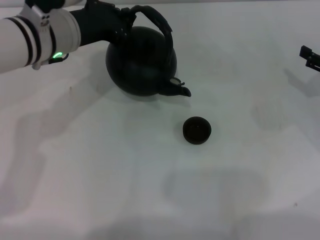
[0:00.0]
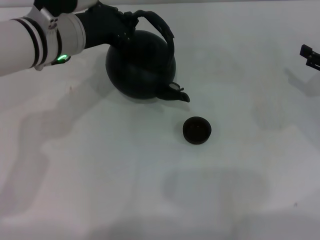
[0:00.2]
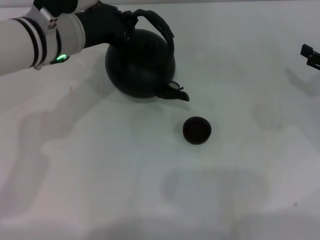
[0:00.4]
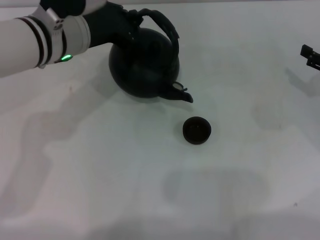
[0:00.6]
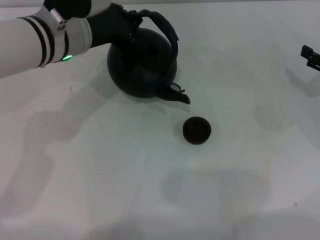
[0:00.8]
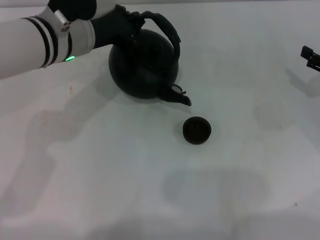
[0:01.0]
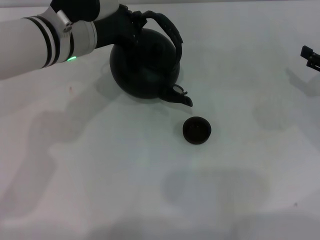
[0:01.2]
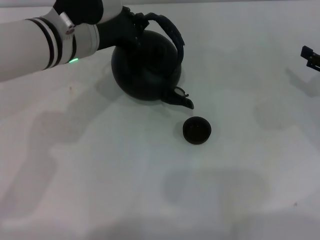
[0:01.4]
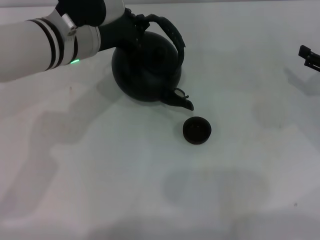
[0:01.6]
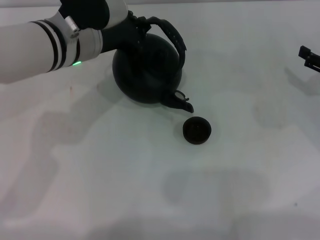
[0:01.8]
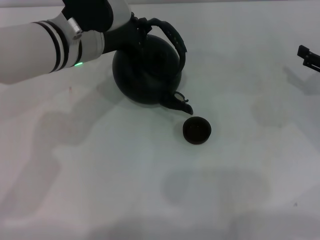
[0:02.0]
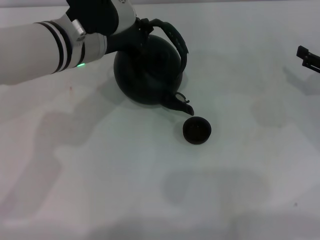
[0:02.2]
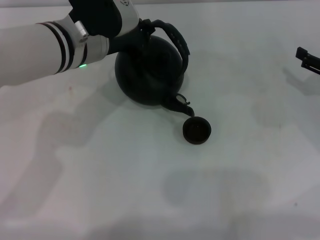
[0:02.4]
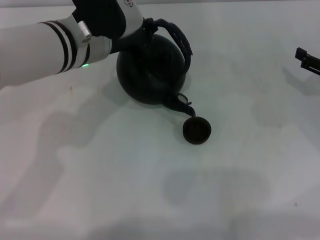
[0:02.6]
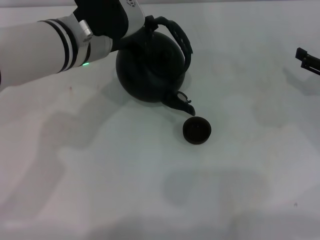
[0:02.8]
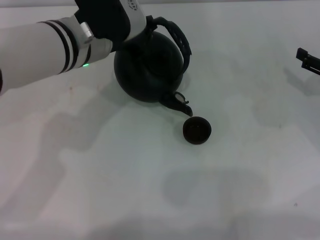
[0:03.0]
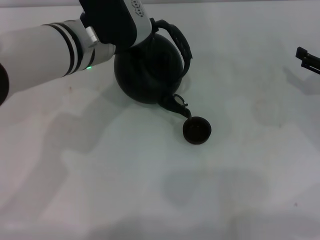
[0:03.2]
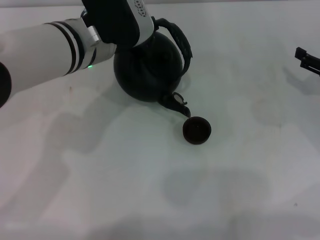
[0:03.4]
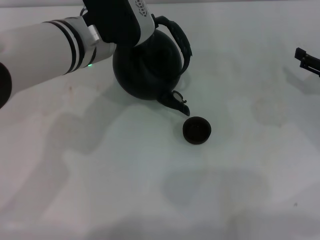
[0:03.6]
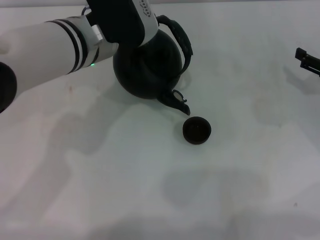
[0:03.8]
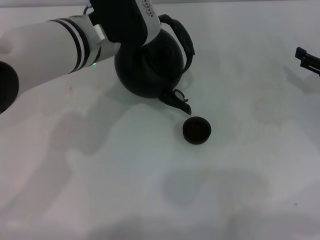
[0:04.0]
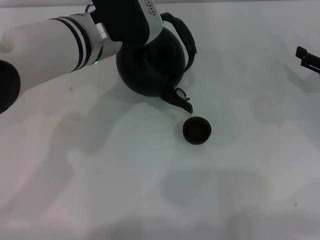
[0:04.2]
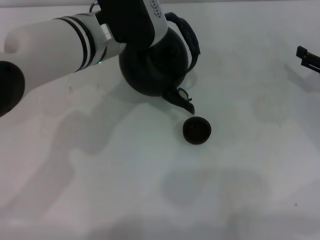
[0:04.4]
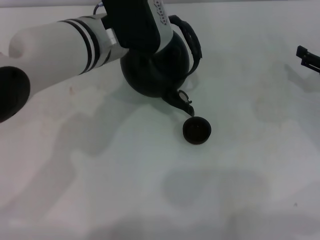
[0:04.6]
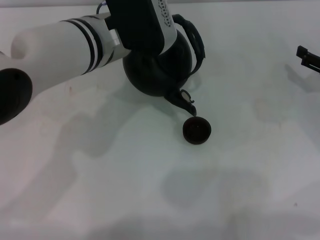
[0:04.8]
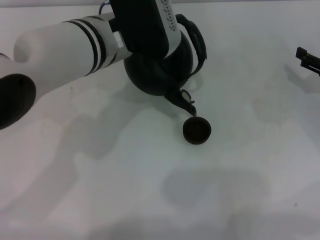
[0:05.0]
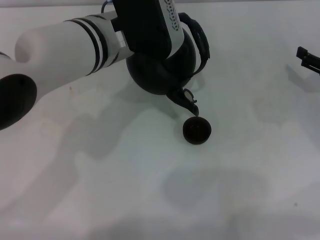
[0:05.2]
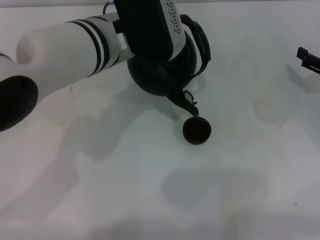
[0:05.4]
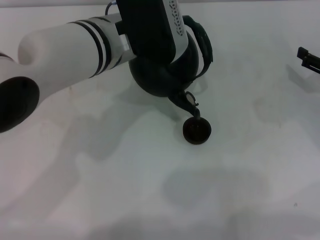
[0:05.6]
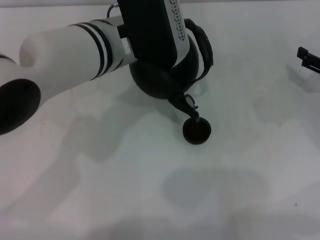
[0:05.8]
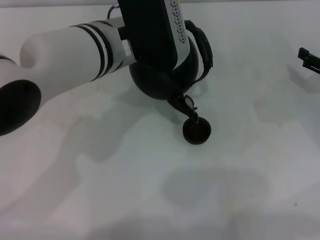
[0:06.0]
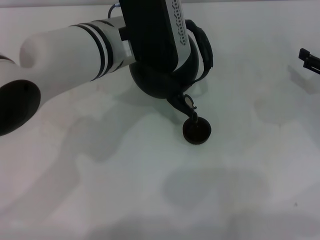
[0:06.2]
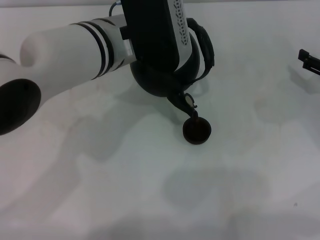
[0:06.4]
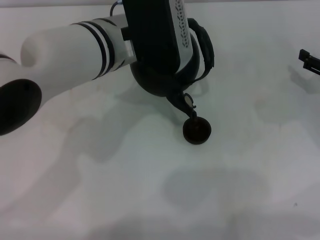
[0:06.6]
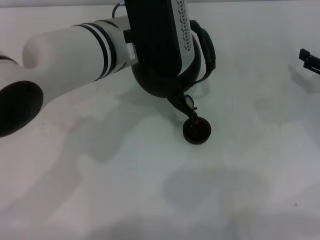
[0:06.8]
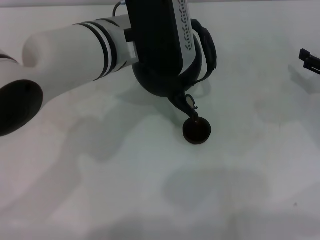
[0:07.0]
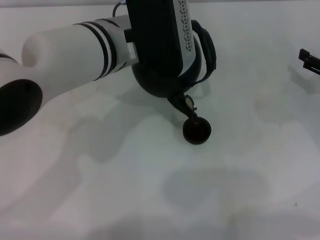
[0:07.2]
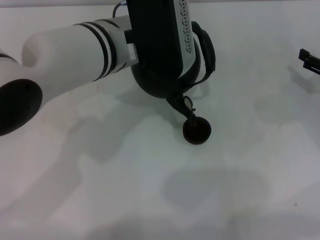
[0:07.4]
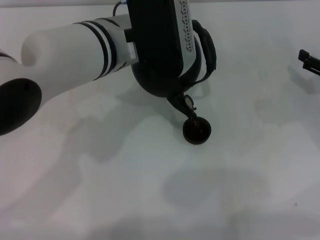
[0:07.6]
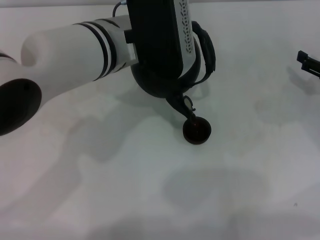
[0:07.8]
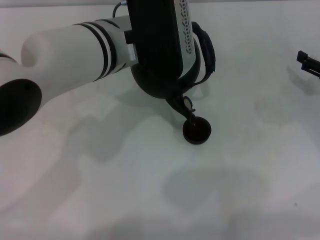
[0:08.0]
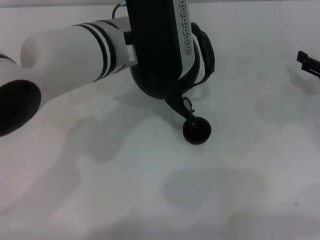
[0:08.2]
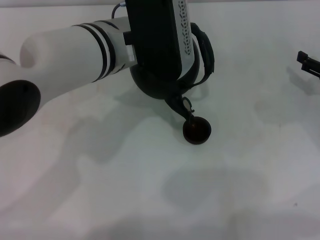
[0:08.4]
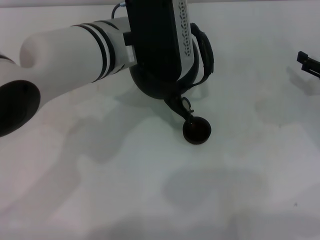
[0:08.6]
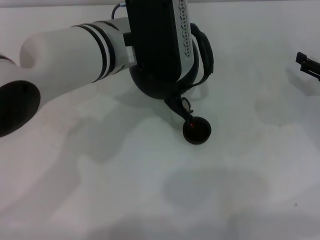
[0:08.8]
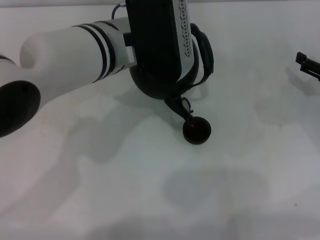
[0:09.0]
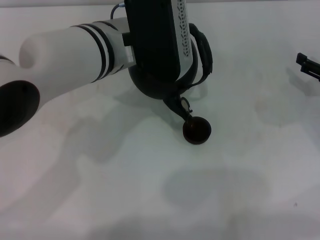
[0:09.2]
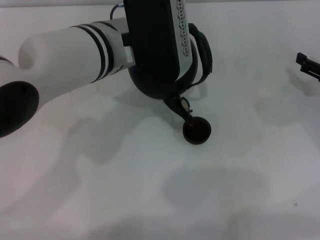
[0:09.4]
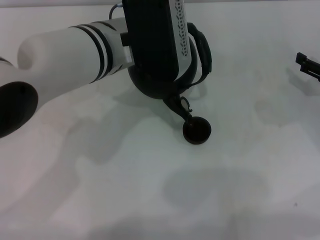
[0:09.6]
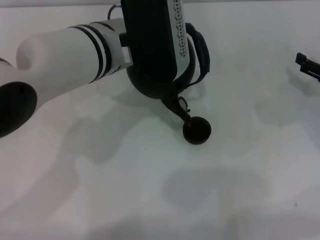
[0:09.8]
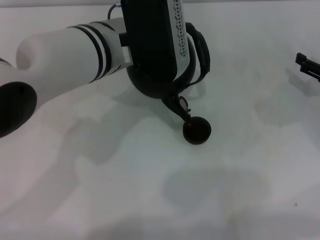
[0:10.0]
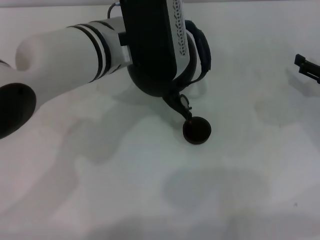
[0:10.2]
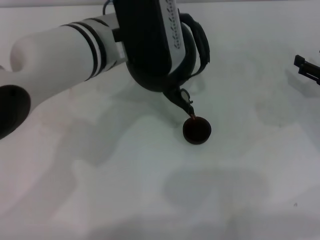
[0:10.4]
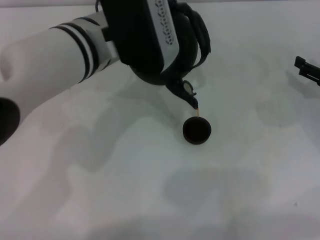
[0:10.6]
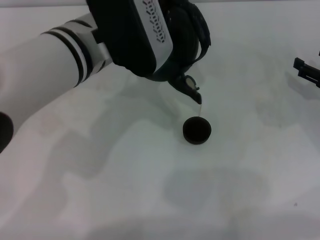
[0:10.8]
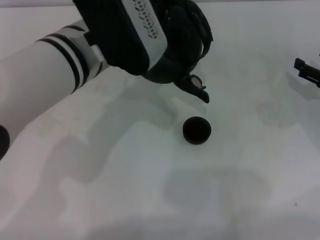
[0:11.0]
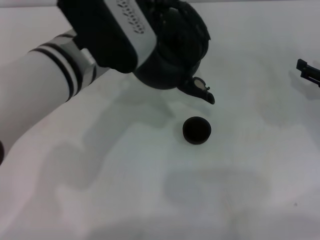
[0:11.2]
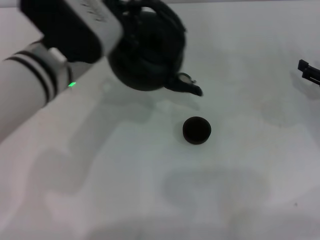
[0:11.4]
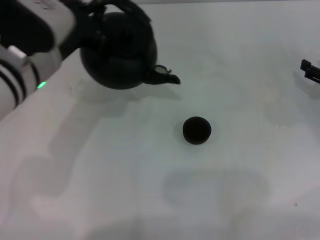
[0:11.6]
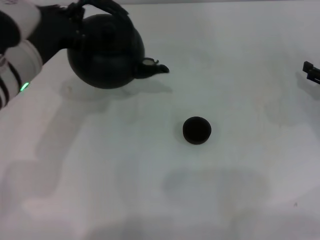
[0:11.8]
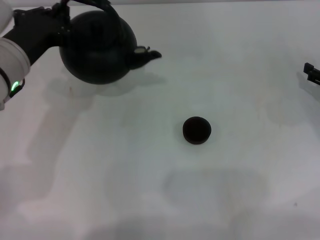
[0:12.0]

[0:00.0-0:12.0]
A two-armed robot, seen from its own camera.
Task of the whole recording: Grasp the handle of the teapot with one hand and pour tea into the teacup.
Step, 0:00.0 to 0:11.6: Pour tea into the teacup with the left gripper.
0:00.0 to 0:01.6: The grippers move only a little.
0:01.6 to 0:04.4: The grippers make only small movements.
0:04.4 to 0:07.6: The grippers stay close to where they were, moving slightly.
0:07.6 to 0:10.4: Both grippers stay put.
0:10.4 to 0:12.0: The left gripper is displaced to the left by about 10 cm.

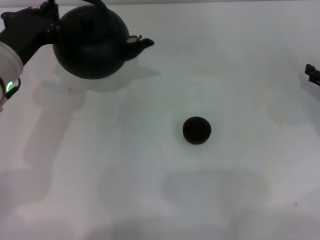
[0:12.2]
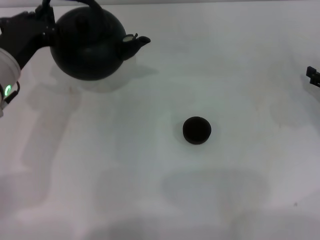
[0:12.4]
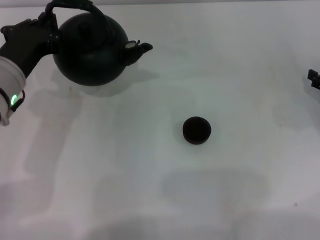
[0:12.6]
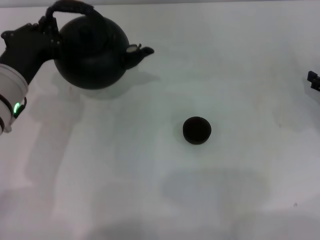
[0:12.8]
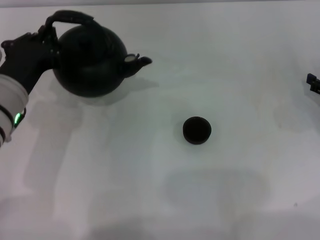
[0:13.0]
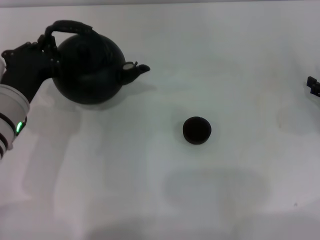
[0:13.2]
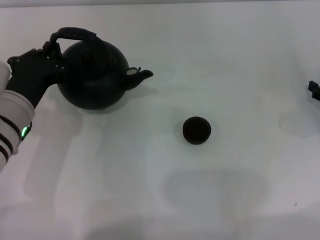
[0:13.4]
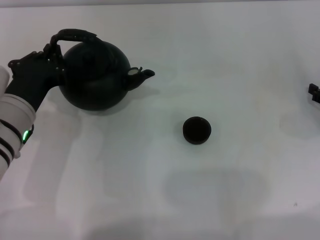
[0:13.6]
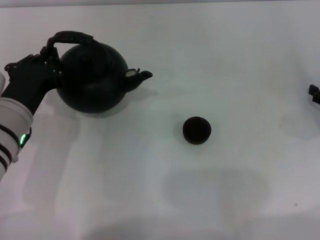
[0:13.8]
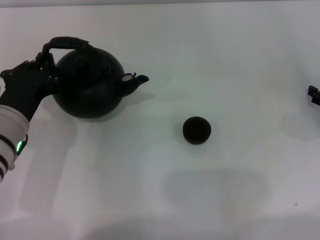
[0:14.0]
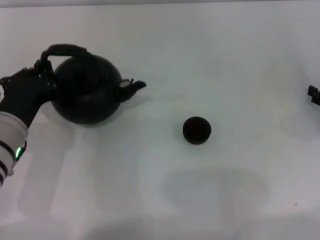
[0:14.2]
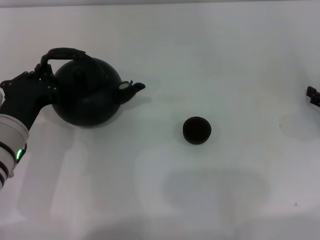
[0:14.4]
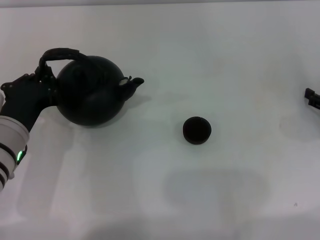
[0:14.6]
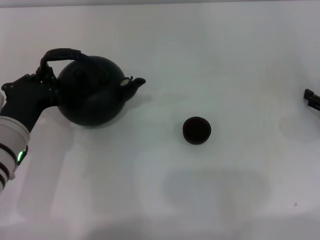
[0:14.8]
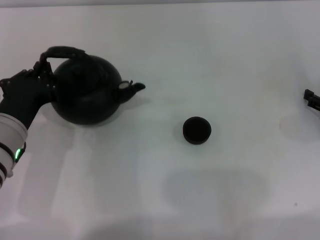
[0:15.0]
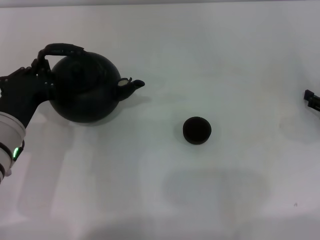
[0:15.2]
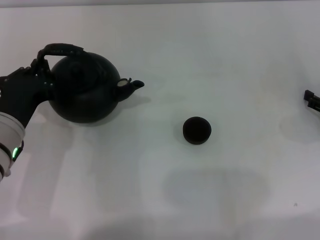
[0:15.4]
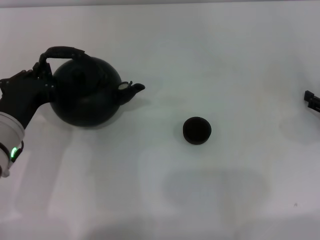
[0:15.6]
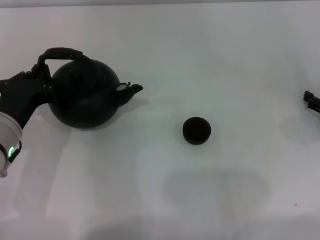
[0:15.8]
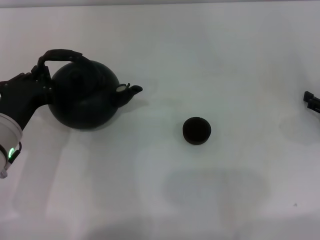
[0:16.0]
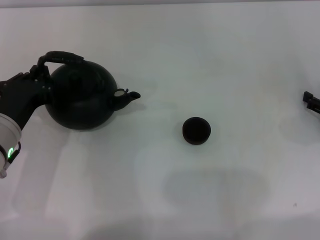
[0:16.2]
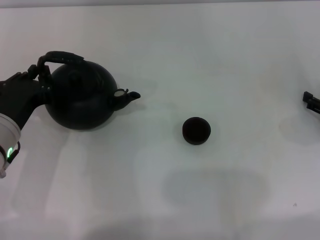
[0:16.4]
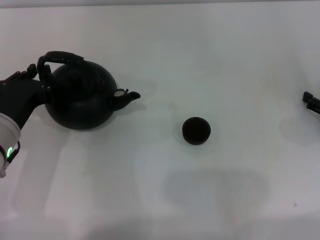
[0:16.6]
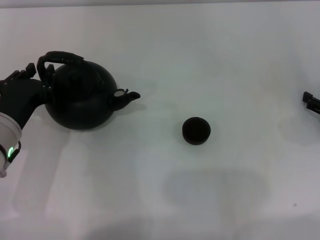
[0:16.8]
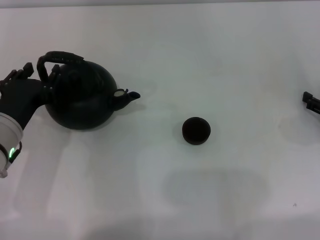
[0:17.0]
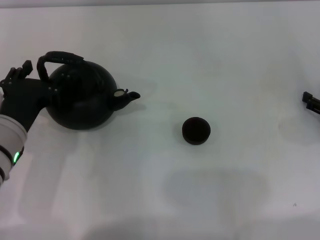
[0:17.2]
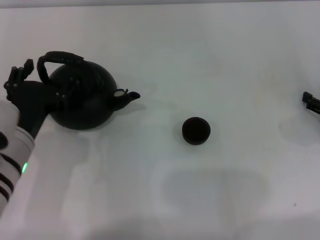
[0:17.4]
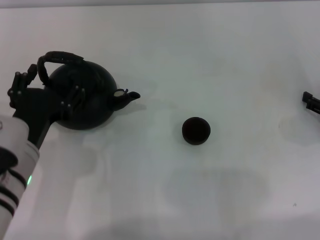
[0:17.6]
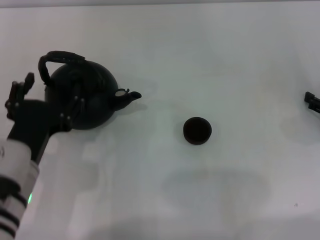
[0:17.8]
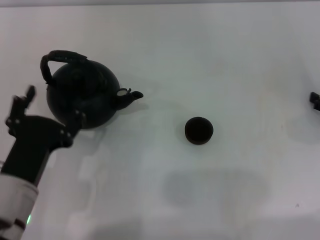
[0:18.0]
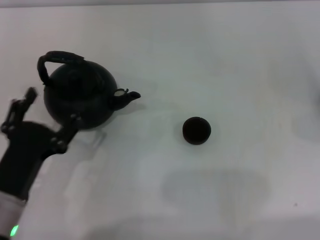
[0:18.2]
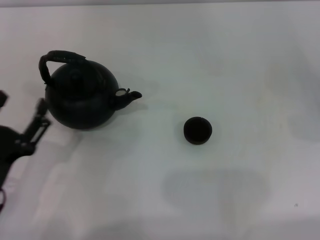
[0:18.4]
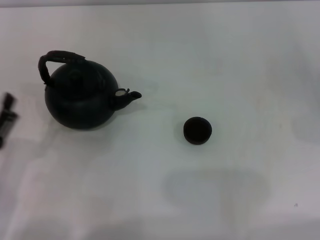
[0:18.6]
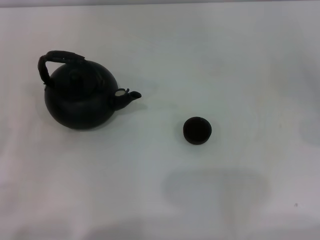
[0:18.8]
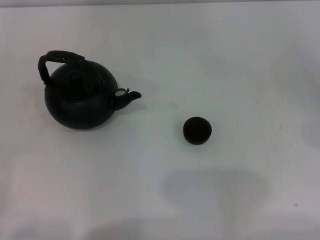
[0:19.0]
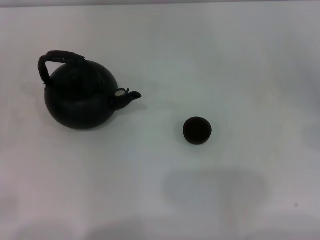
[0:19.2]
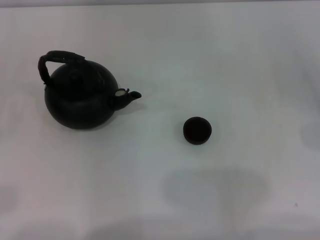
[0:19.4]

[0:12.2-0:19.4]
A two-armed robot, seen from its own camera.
Task of the whole recording: Grasp the handle of the teapot with one hand and pour tea into the teacup.
Step, 0:12.2 to 0:18.0: Put down the teapot with the left gripper.
0:12.2 to 0:13.6: The left gripper changes place by about 5 cm.
0:13.6 to 0:15.0: There are only small adjustments of the grippers.
0:15.0 to 0:16.6: Both grippers stay put.
0:16.6 to 0:18.0: The left gripper goes roughly 10 cm backward, and opens up.
0:18.0 to 0:19.4: The left gripper shifts approximately 25 cm to the left.
